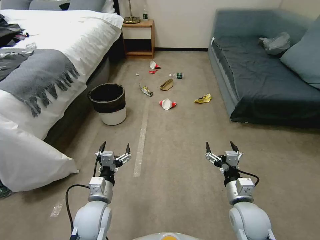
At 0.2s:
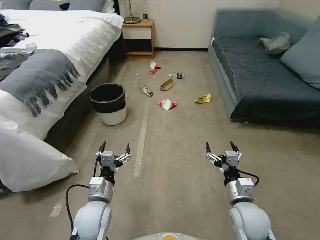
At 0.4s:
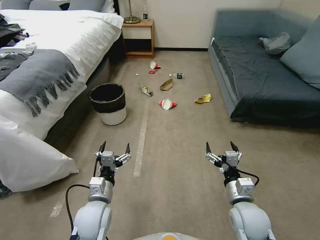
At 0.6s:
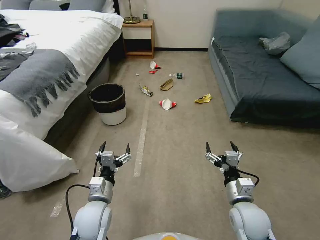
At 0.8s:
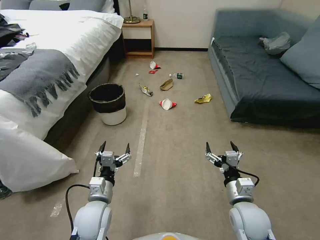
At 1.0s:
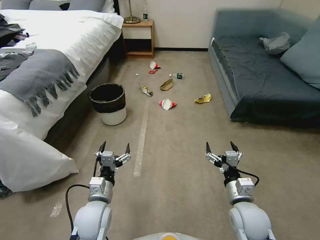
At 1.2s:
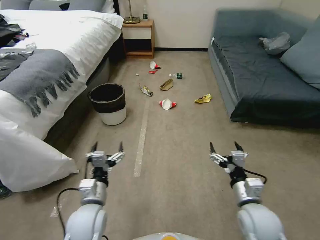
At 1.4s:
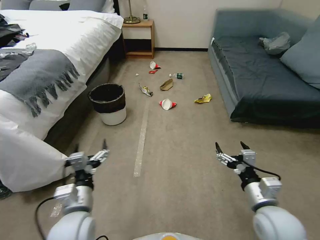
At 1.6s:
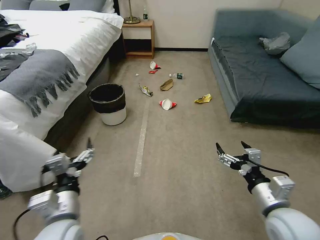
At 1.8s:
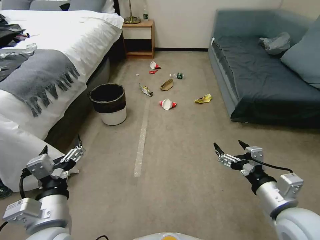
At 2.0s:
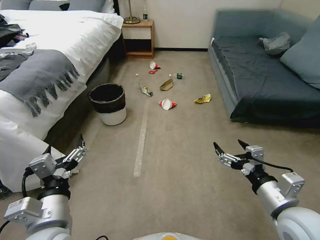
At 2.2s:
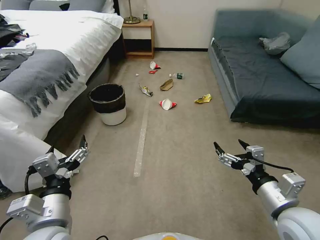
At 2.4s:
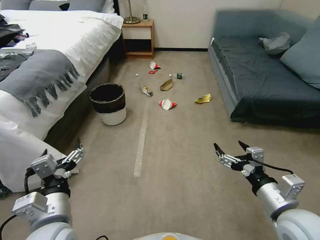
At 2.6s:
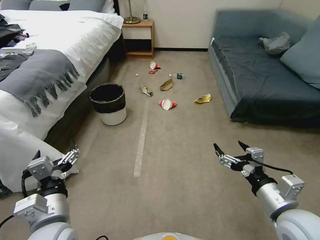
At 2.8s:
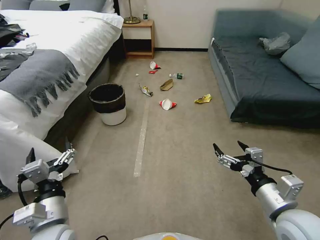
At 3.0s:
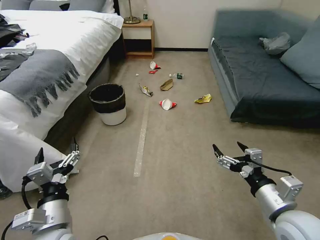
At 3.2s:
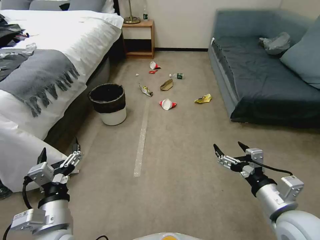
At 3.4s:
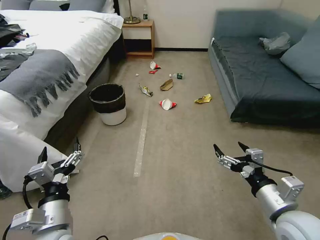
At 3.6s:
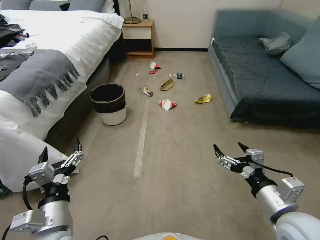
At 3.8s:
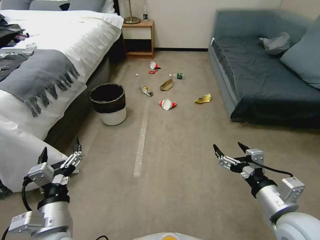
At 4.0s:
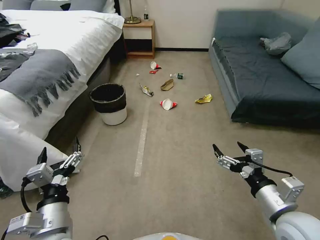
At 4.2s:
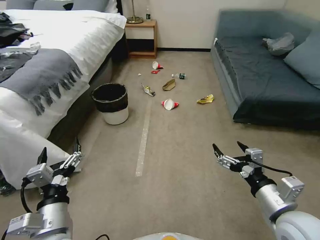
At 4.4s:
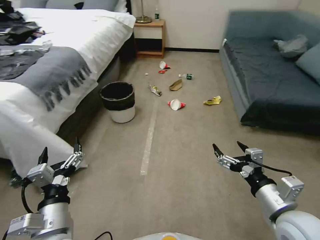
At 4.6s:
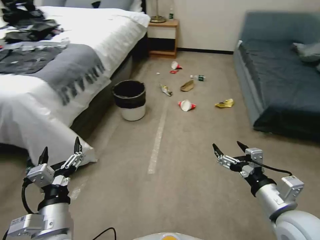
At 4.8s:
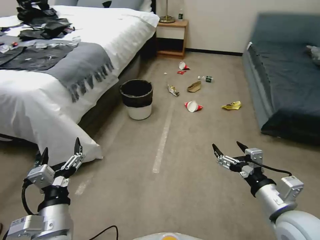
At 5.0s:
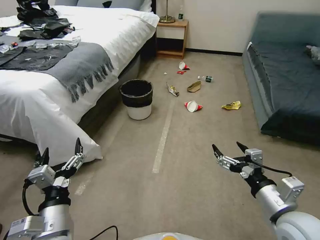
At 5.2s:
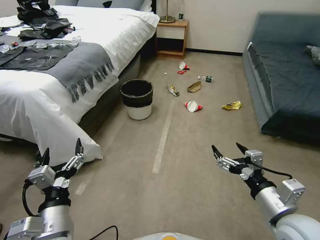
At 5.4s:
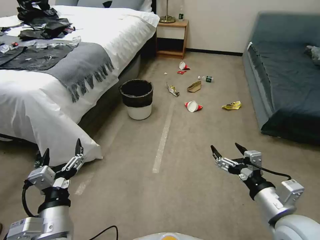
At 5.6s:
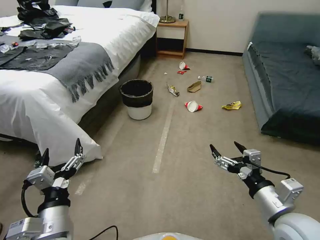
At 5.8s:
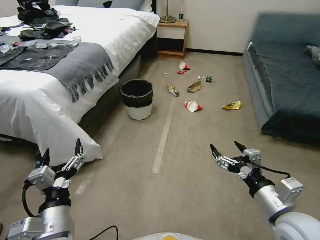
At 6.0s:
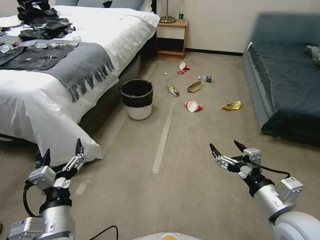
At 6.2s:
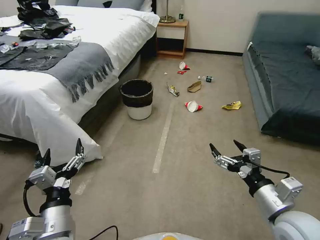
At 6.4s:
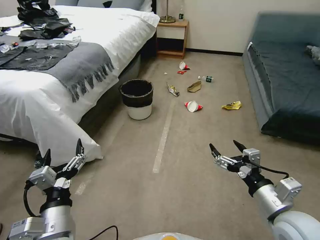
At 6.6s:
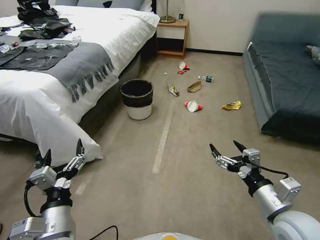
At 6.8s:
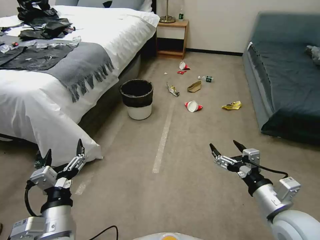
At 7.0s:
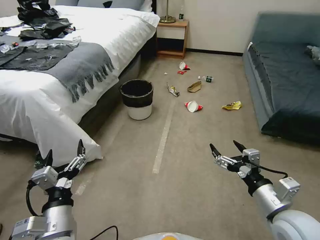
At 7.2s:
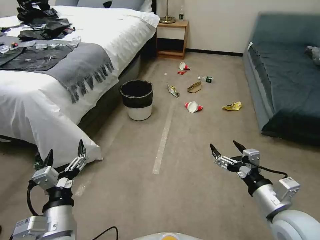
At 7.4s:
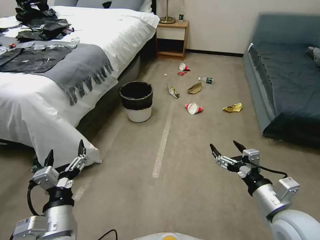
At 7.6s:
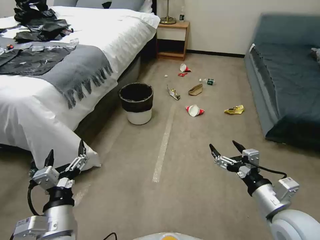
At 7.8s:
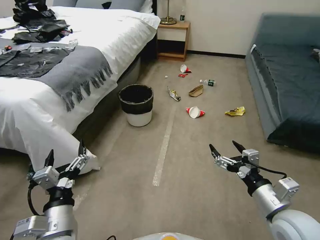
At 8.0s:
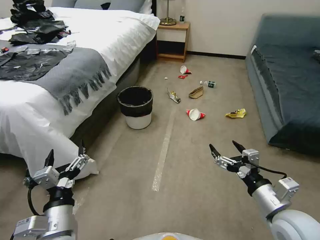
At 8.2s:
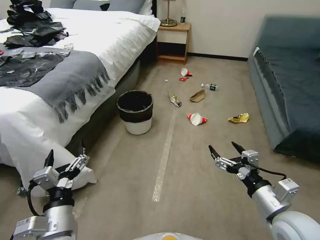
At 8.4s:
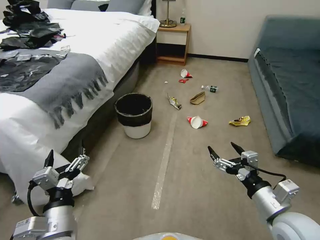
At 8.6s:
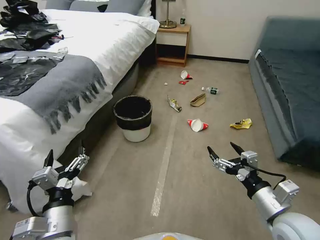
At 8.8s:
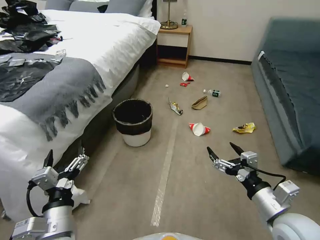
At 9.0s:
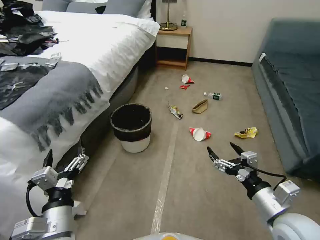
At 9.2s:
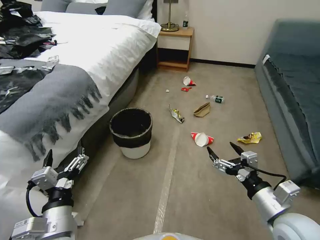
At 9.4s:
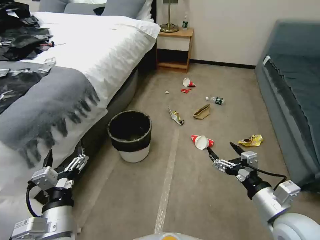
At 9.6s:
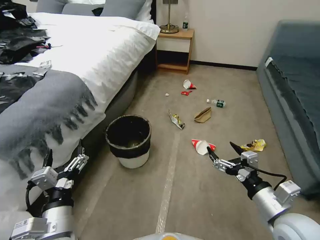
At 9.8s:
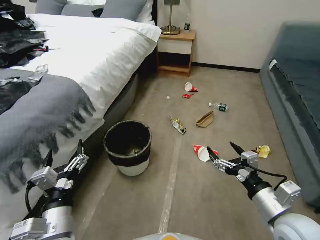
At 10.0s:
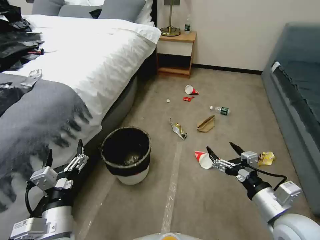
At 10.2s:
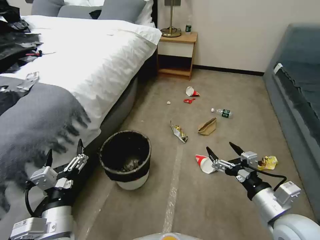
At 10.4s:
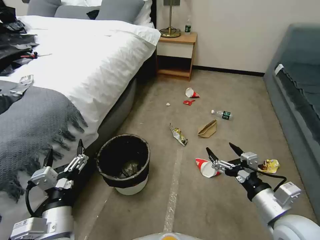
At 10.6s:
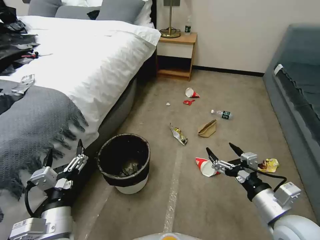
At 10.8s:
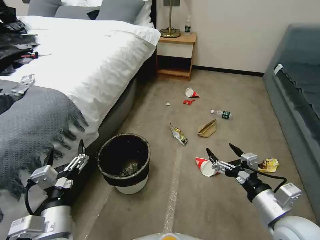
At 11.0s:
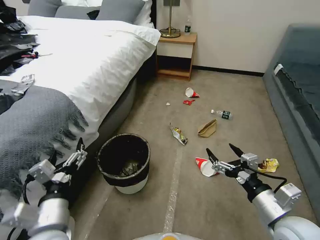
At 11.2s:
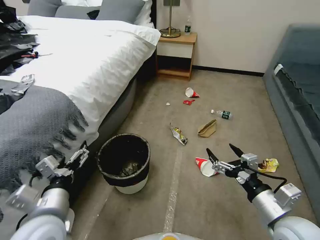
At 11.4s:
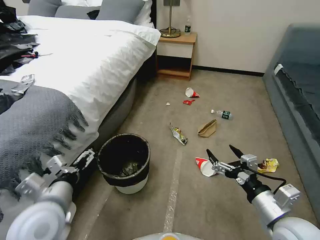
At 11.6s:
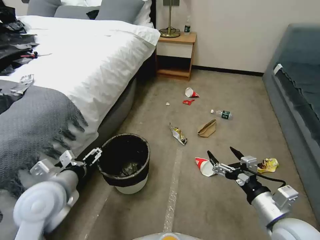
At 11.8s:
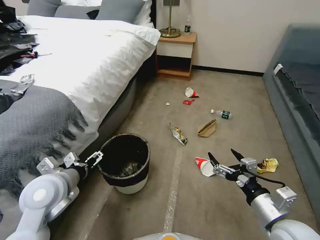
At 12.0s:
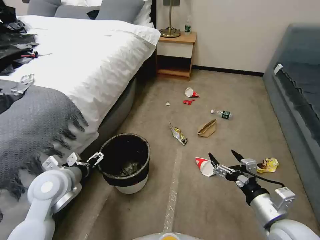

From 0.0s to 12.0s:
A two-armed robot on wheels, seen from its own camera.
Task of the whole recording: Pick up the trash can from the floor.
From 1.6s to 3.0s: The grippers move only a little.
From 10.4s to 12.0s: The left gripper goes some 15 cm forward and to the left.

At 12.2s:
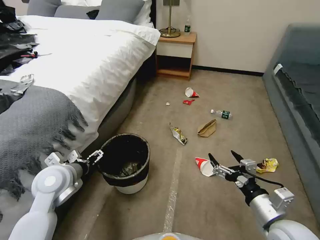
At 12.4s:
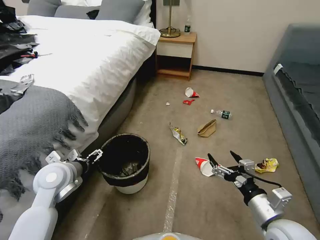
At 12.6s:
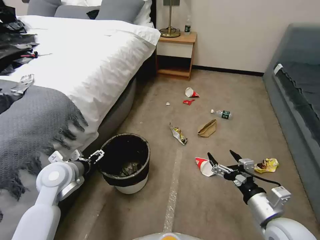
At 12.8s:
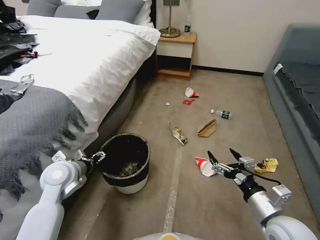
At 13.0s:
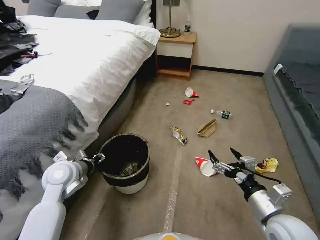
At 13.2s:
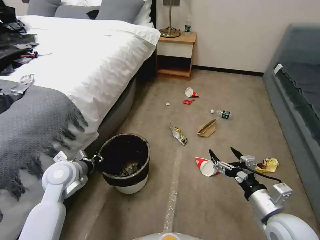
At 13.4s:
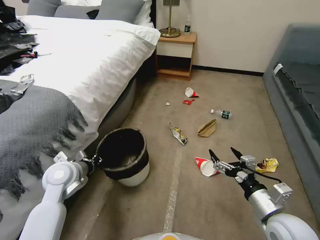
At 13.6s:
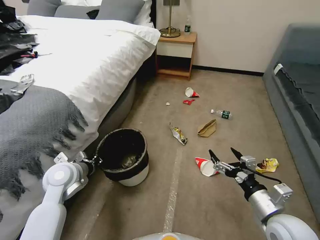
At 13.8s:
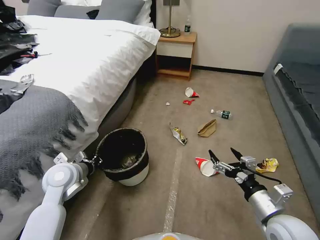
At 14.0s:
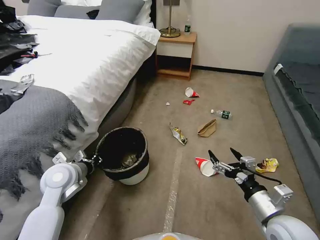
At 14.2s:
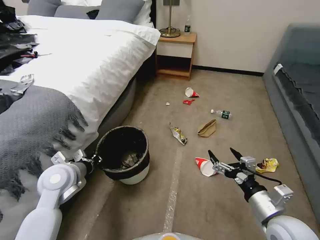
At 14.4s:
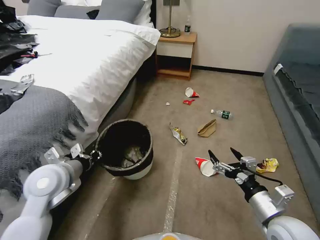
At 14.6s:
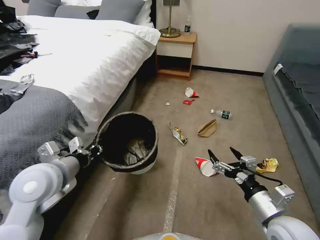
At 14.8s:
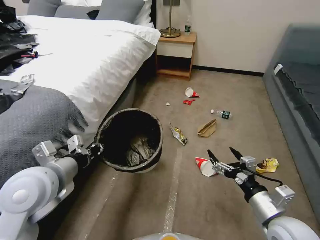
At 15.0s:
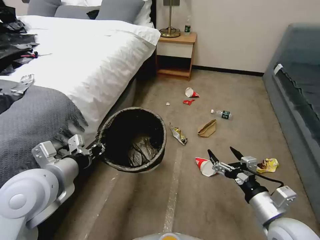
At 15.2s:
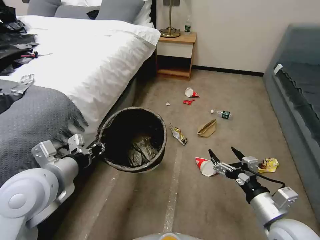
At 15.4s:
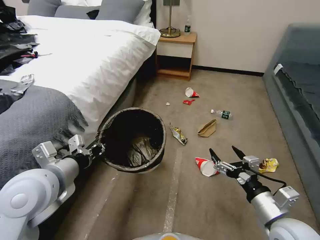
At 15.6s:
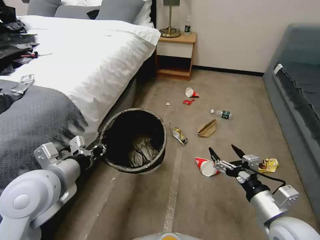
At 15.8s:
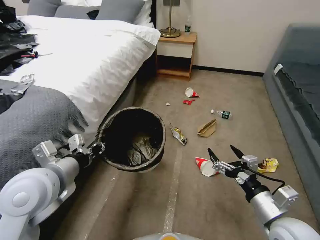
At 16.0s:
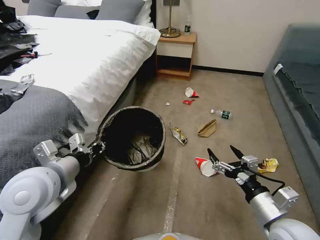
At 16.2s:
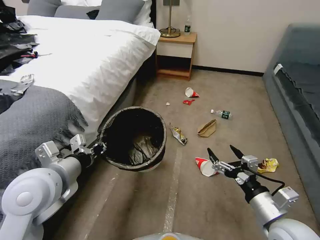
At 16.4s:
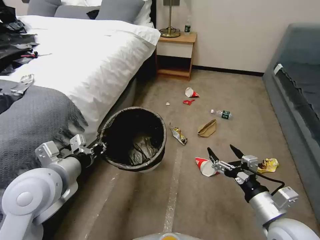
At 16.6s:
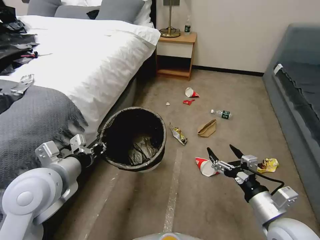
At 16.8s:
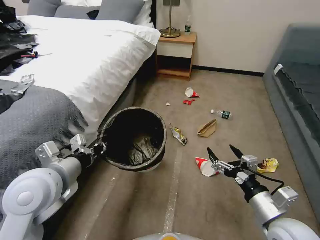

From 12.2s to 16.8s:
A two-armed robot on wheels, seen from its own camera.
Task of the whole recording: Pick up the trash can from the floor.
From 12.2s to 13.8s: The left gripper closes up.
From 13.8s to 15.2s: The left gripper moves upward and backward, about 15 cm.
From 15.2s to 16.8s: Neither gripper changes place.

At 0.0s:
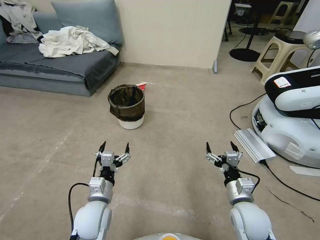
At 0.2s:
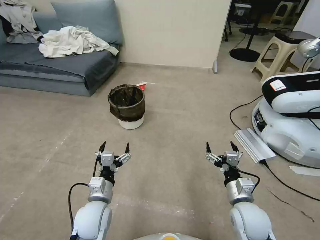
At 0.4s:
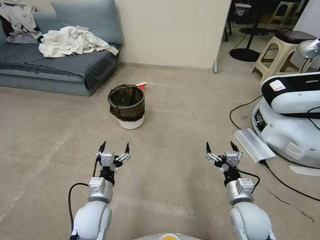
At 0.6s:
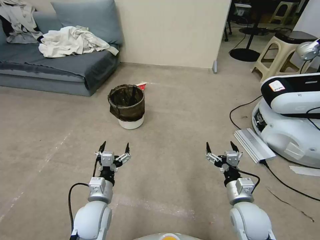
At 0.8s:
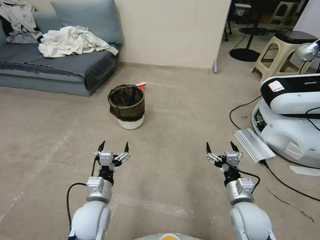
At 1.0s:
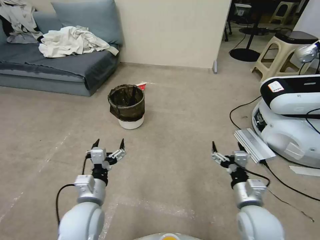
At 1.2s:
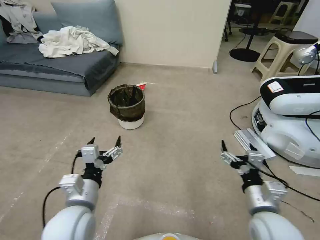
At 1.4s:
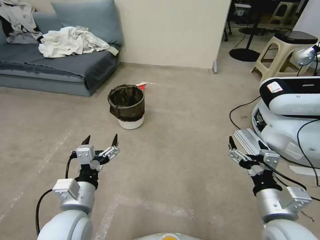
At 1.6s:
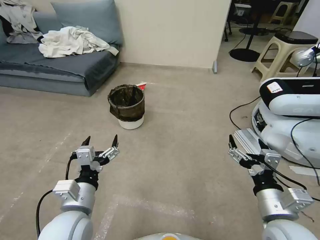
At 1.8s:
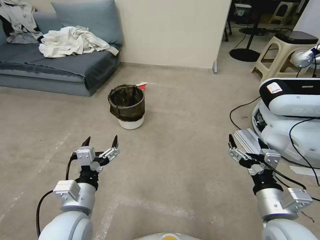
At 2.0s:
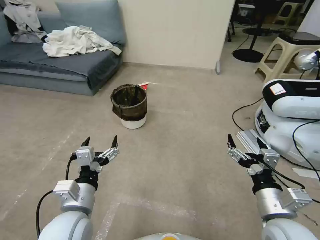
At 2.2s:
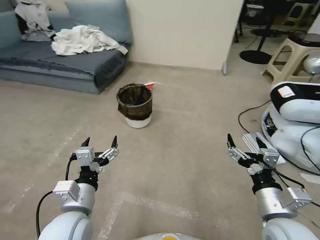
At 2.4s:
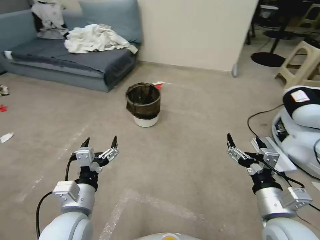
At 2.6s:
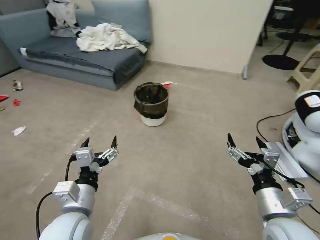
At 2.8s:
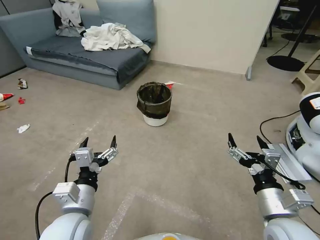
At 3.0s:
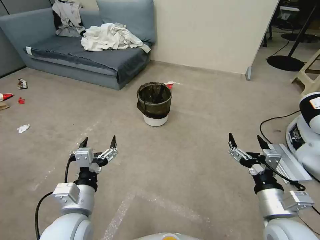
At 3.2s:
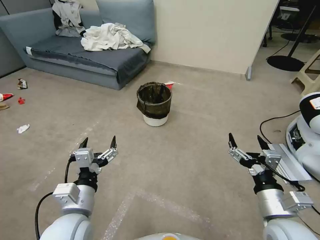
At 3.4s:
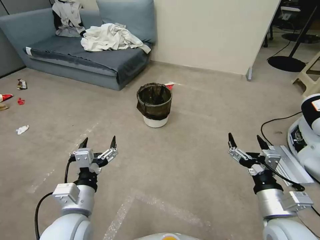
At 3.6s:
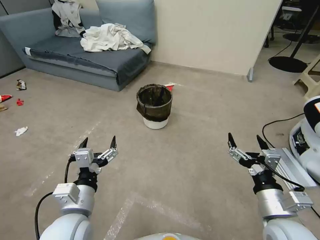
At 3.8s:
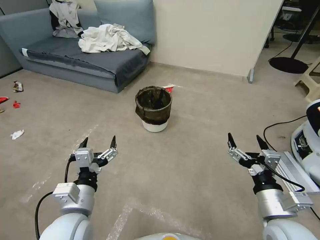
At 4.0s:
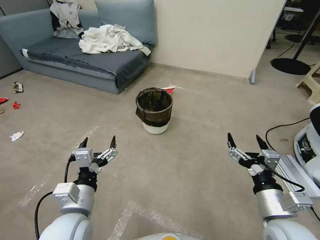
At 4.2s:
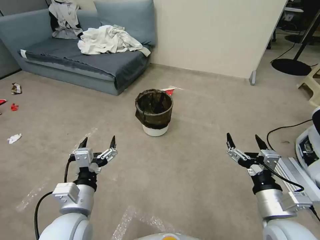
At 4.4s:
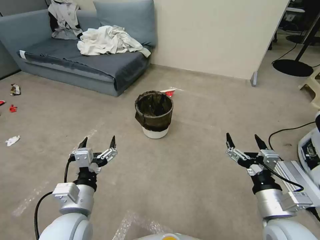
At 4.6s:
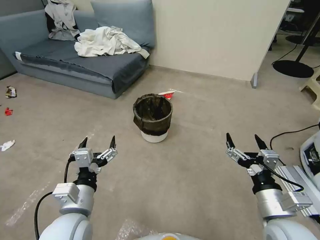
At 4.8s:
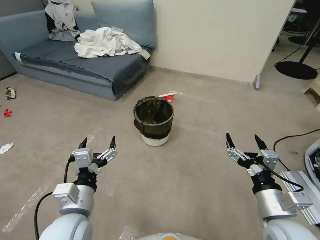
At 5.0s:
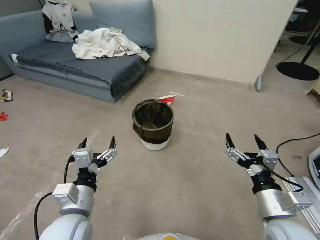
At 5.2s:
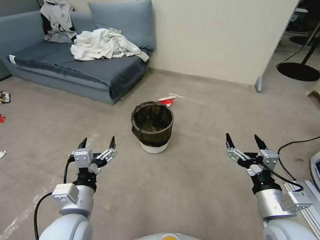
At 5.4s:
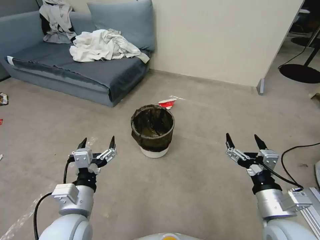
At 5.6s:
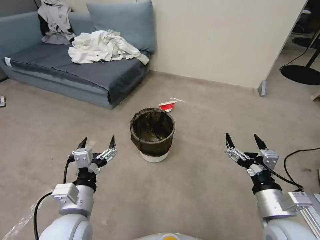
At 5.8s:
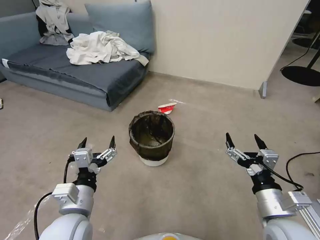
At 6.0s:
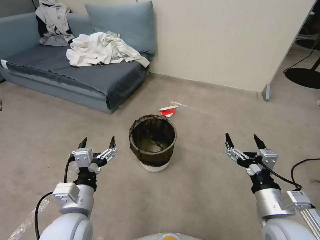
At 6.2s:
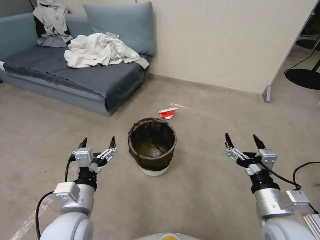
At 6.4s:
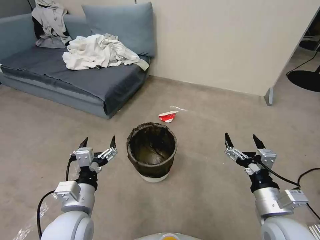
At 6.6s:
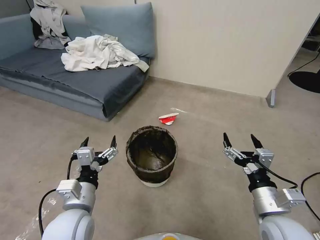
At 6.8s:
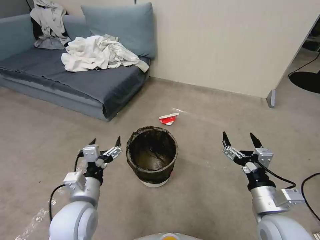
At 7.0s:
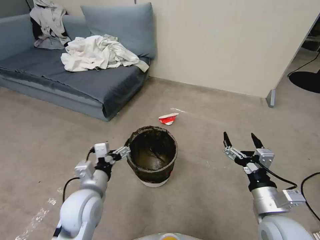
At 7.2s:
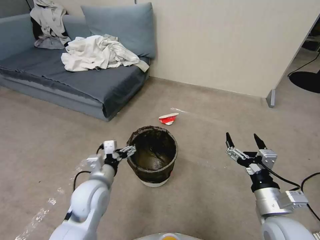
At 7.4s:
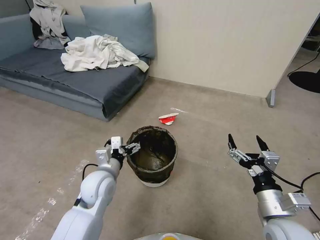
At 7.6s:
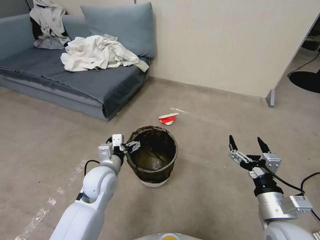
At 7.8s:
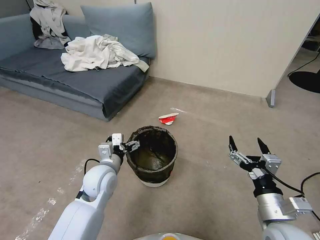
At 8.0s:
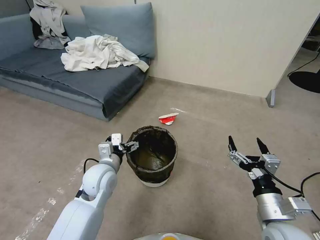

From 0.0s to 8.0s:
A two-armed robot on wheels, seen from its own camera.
Task of the whole recording: Pick up the trash can from the floor.
From 6.4s to 8.0s: The left gripper heads forward, covering some 15 cm.
